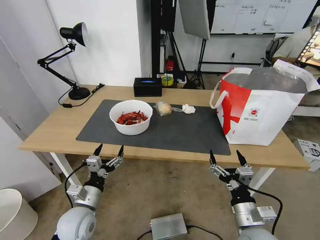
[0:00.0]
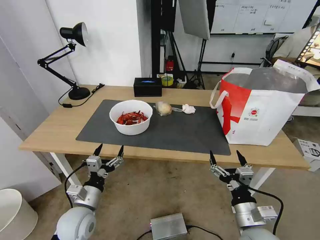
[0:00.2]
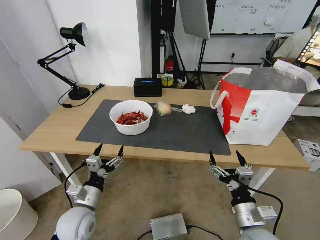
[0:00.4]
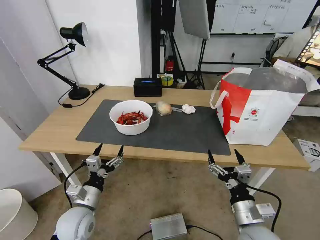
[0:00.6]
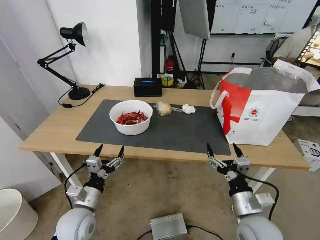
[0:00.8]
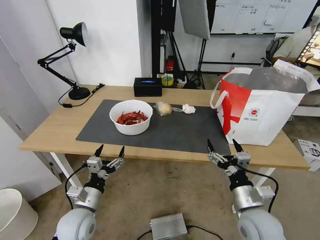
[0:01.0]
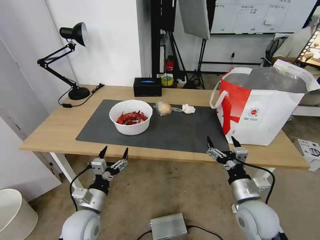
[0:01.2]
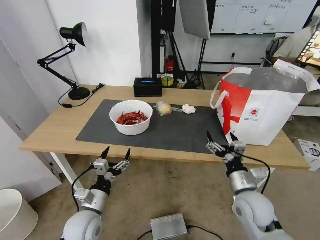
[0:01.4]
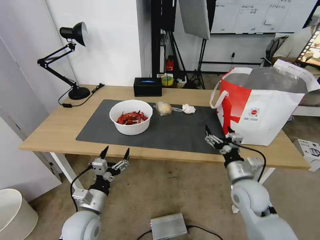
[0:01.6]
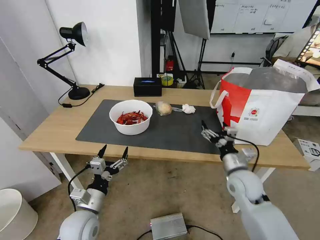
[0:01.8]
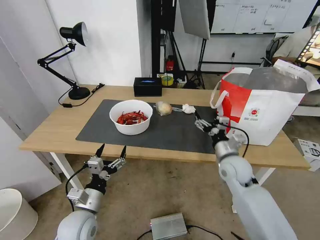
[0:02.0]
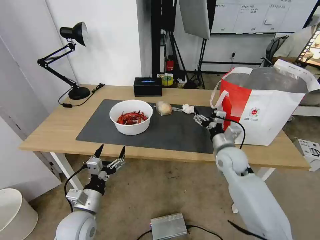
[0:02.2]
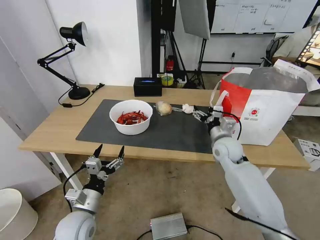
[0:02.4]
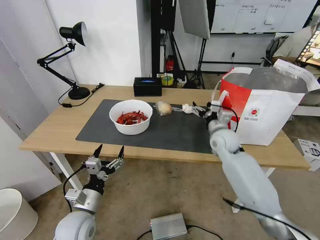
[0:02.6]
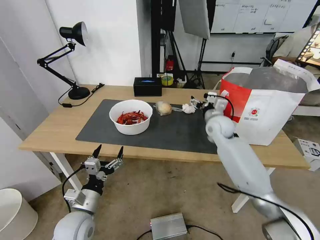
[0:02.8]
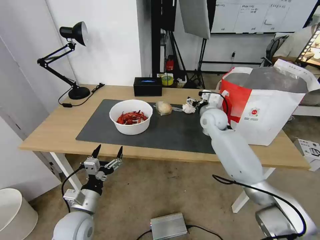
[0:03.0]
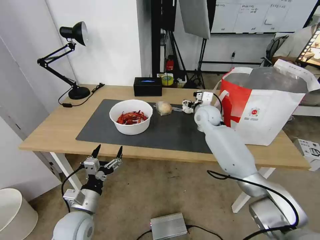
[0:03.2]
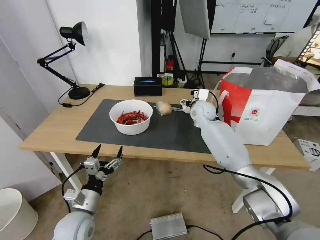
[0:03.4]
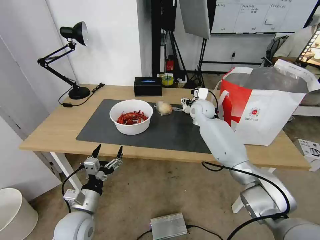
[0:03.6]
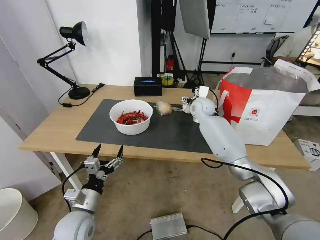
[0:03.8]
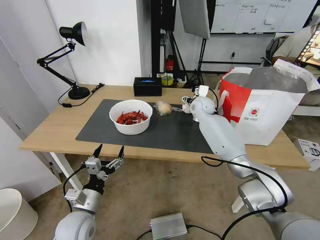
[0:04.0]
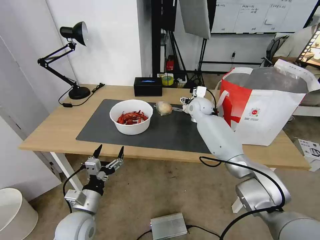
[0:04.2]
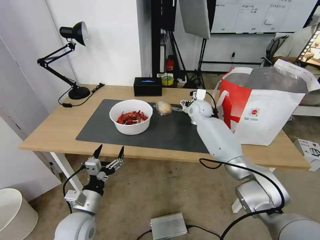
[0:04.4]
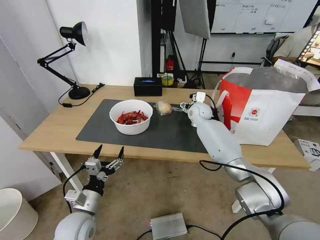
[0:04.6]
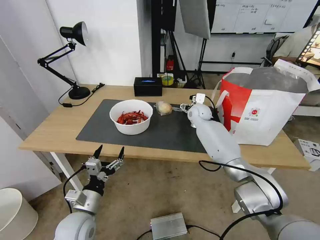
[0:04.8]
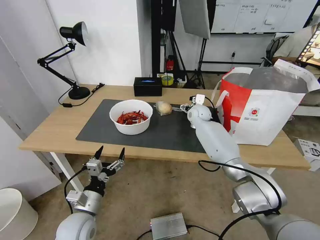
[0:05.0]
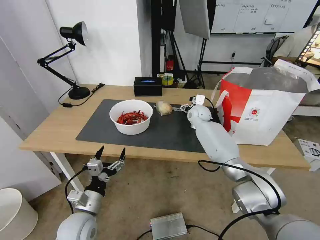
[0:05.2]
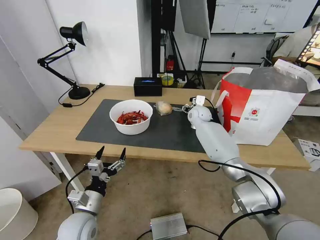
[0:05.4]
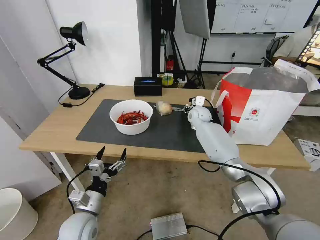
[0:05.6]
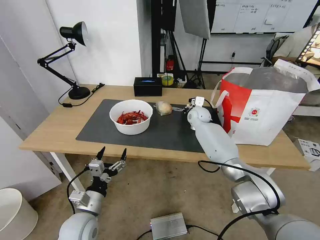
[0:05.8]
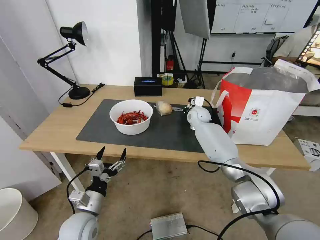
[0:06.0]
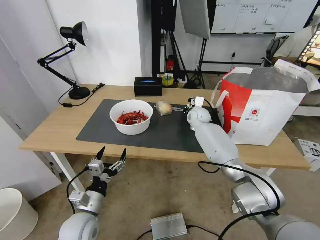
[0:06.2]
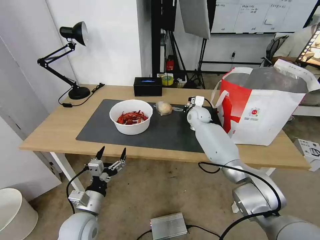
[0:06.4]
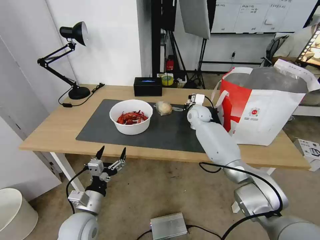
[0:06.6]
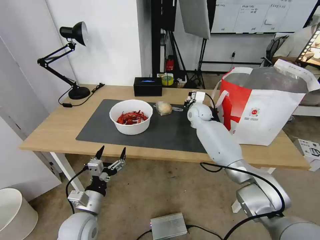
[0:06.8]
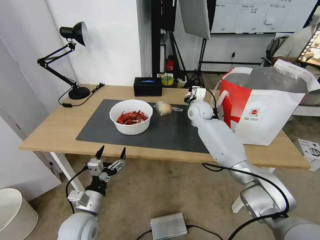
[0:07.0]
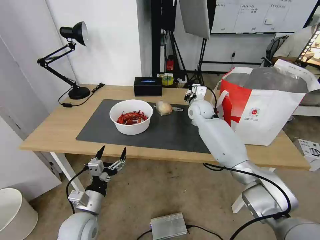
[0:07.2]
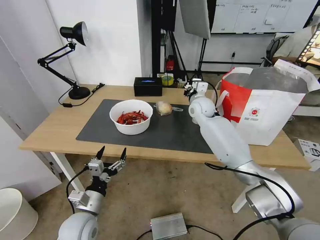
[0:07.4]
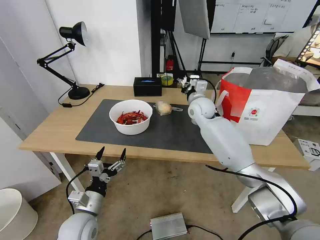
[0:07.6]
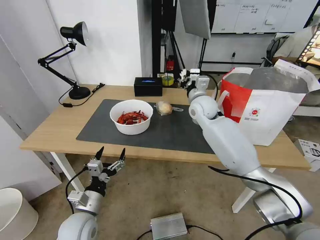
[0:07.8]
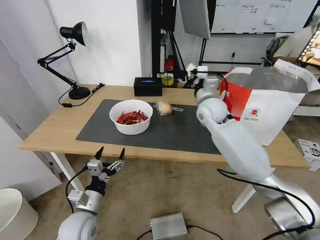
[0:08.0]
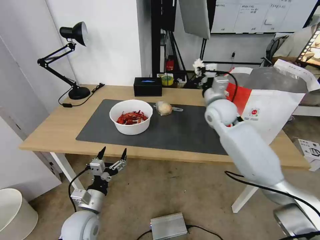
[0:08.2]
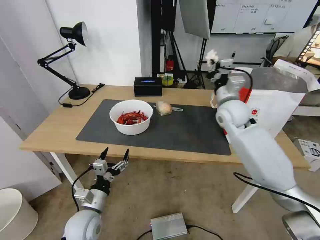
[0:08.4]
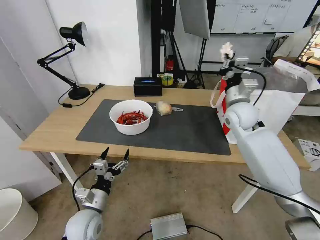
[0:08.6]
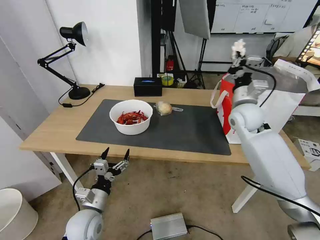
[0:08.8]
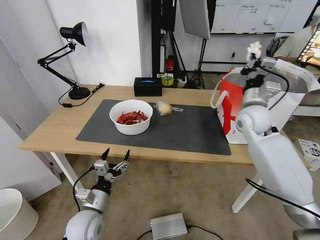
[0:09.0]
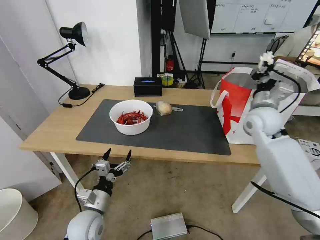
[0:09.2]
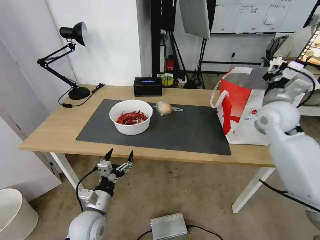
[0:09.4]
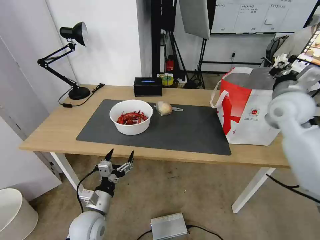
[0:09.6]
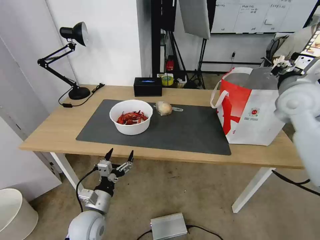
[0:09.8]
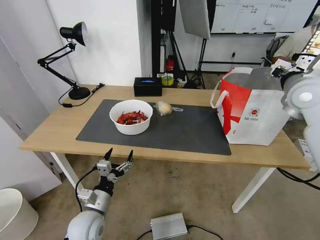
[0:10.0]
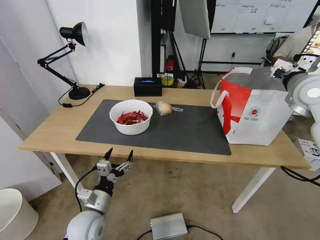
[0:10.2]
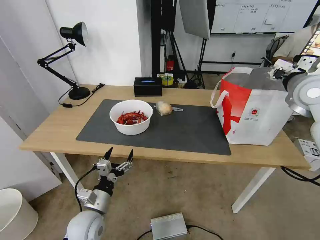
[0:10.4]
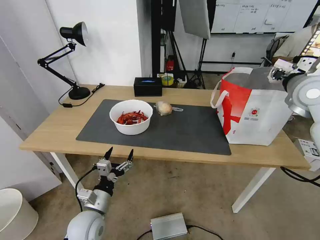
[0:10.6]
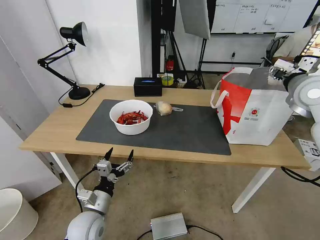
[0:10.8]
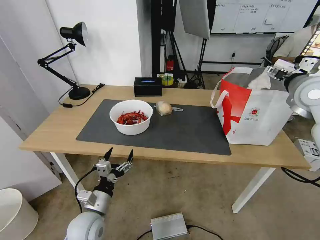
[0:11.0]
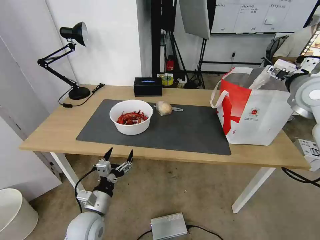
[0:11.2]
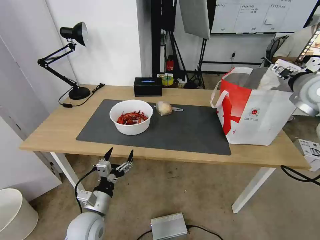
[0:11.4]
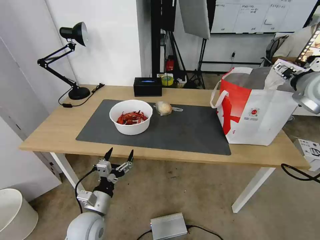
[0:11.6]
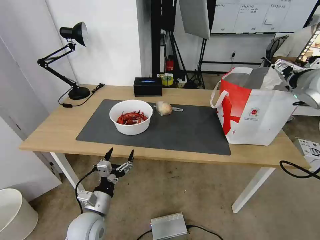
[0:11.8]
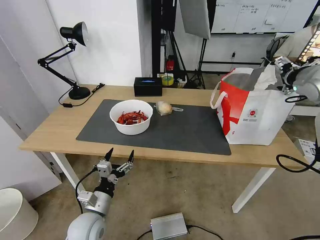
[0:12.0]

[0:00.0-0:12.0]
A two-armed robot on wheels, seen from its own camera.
Task of the whole recording: Pick up the trash from the table and place it into the takeout bag.
0:00.0 to 0:01.6: The right gripper is displaced forward by approximately 10 cm.
0:01.6 to 0:03.0: The right gripper shifts approximately 25 cm forward.
0:03.0 to 0:04.4: The right gripper goes some 10 cm forward.
0:04.4 to 0:06.0: The right gripper closes its fingers.
0:06.0 to 0:07.6: The right gripper travels upward and backward by about 10 cm.
0:07.6 to 0:09.0: The right gripper travels to the right and backward by some 15 cm.
0:09.0 to 0:10.4: The right gripper shifts approximately 15 cm upward and to the right.
0:10.4 to 0:12.0: The right gripper opens its fingers.

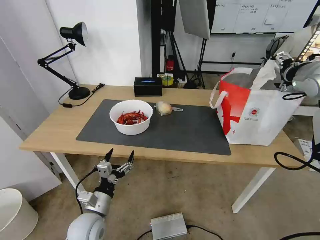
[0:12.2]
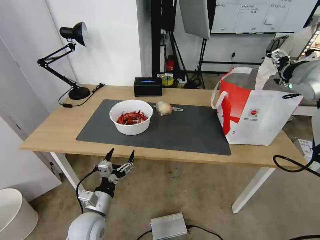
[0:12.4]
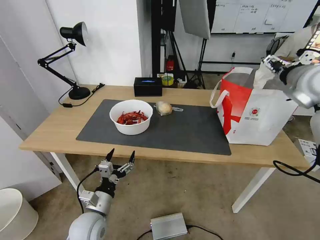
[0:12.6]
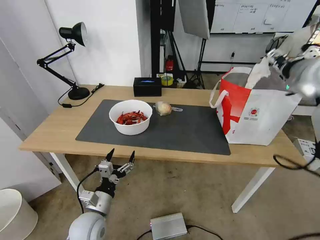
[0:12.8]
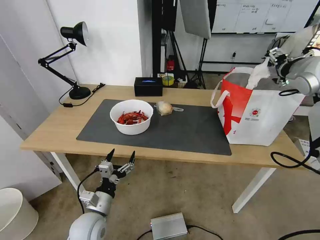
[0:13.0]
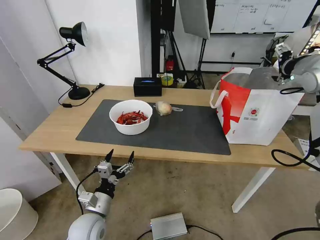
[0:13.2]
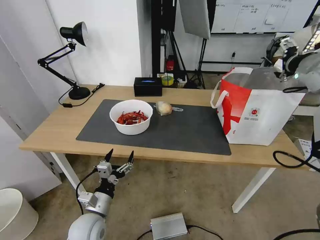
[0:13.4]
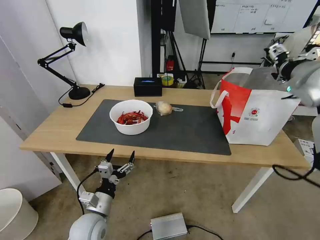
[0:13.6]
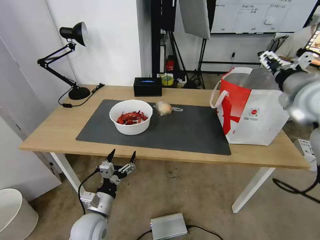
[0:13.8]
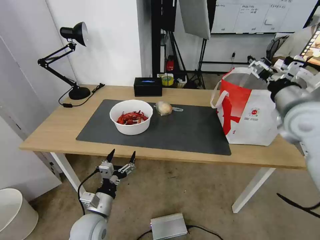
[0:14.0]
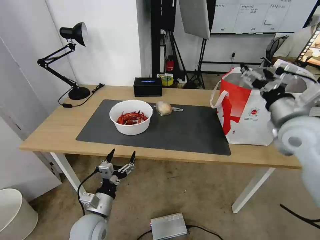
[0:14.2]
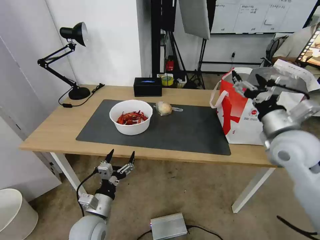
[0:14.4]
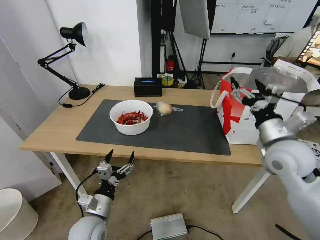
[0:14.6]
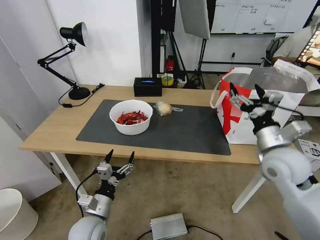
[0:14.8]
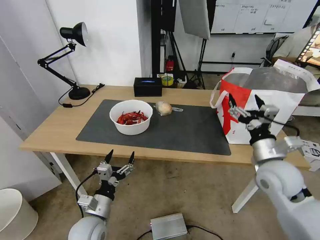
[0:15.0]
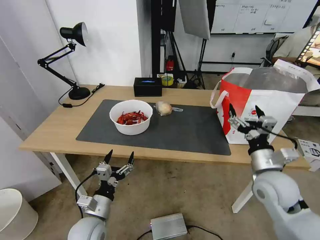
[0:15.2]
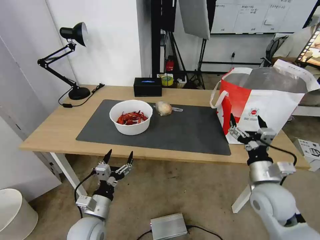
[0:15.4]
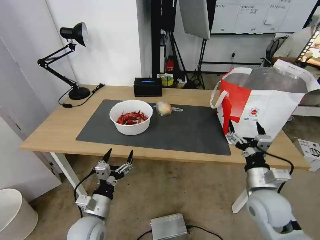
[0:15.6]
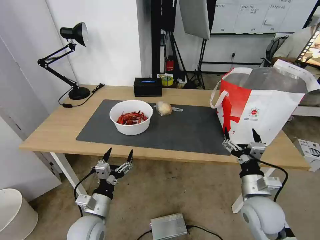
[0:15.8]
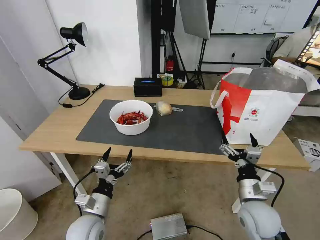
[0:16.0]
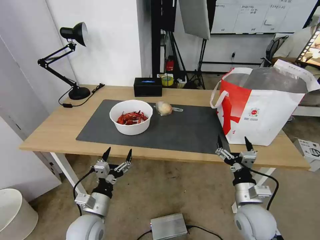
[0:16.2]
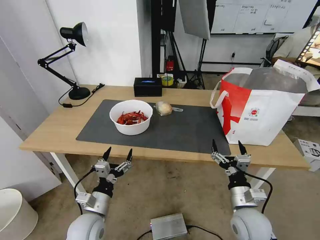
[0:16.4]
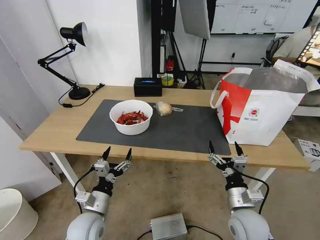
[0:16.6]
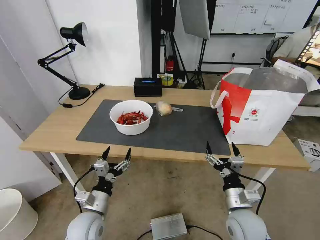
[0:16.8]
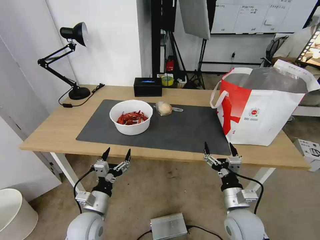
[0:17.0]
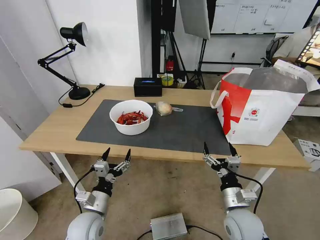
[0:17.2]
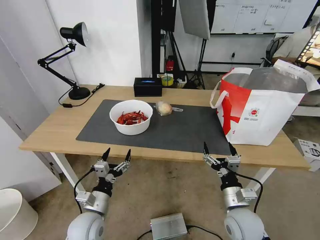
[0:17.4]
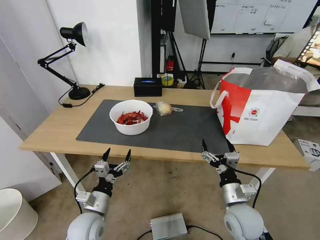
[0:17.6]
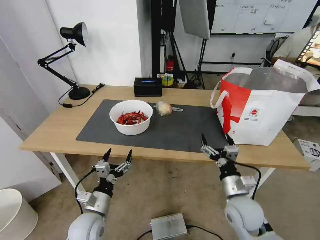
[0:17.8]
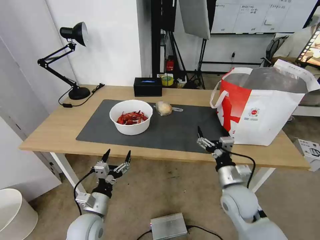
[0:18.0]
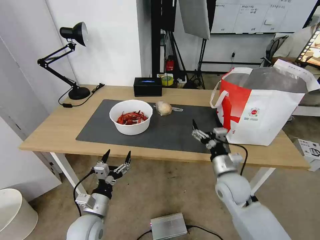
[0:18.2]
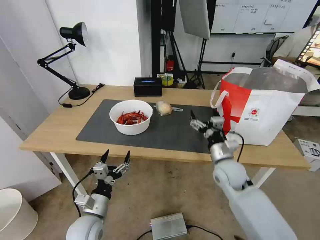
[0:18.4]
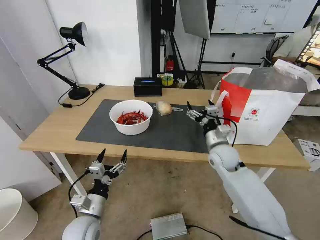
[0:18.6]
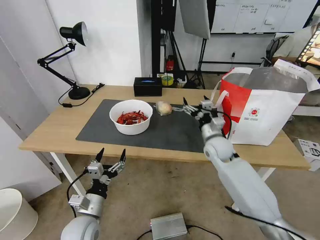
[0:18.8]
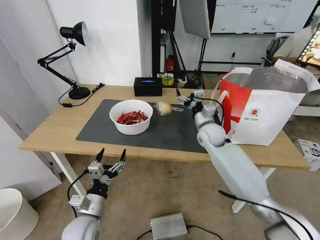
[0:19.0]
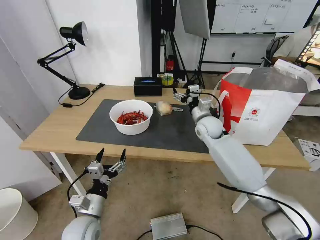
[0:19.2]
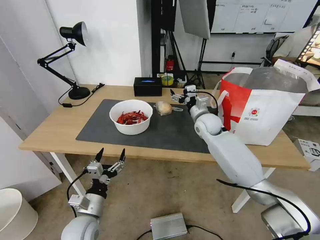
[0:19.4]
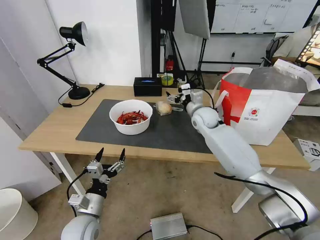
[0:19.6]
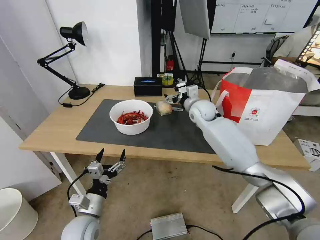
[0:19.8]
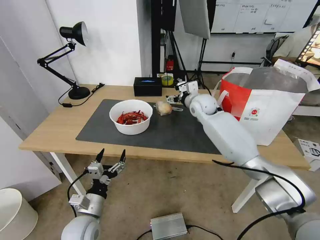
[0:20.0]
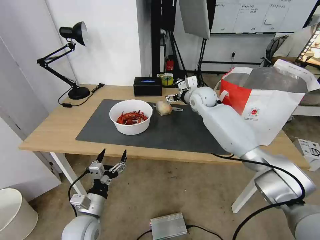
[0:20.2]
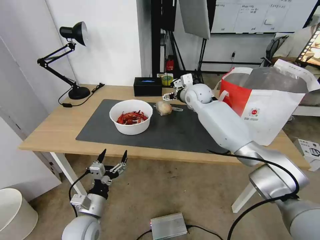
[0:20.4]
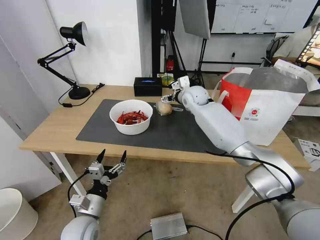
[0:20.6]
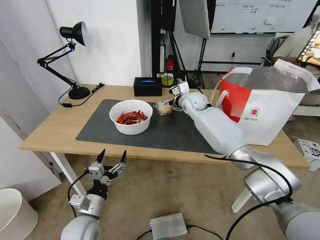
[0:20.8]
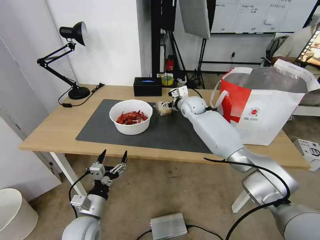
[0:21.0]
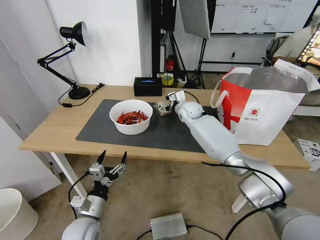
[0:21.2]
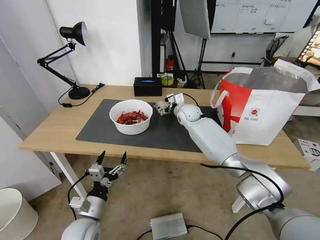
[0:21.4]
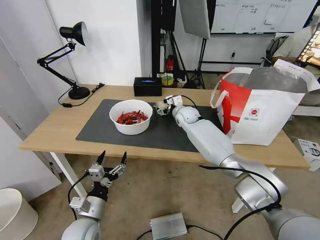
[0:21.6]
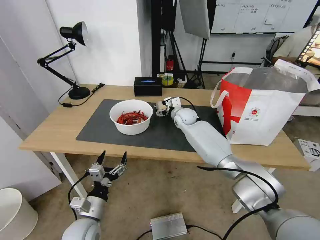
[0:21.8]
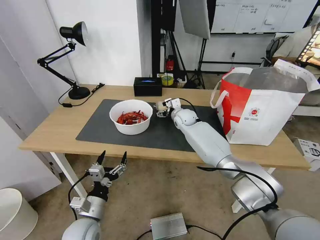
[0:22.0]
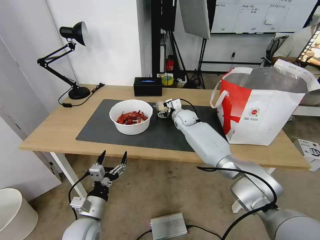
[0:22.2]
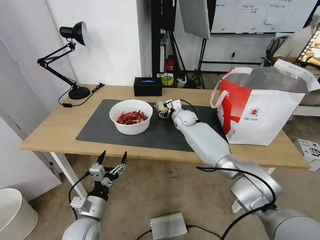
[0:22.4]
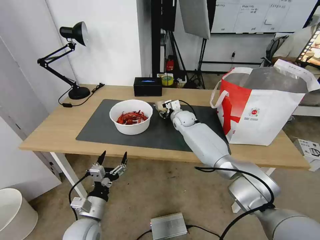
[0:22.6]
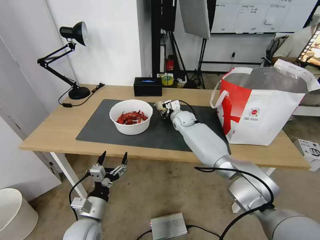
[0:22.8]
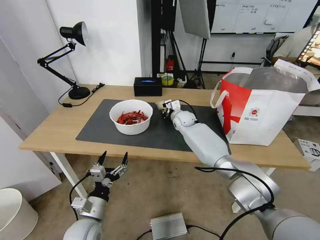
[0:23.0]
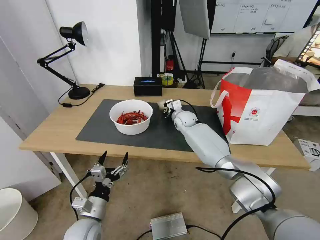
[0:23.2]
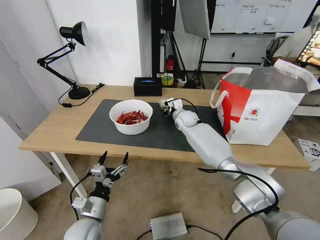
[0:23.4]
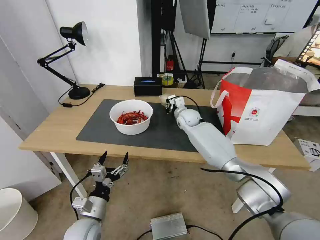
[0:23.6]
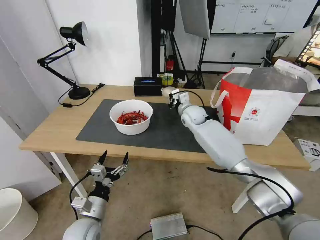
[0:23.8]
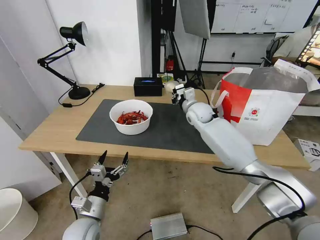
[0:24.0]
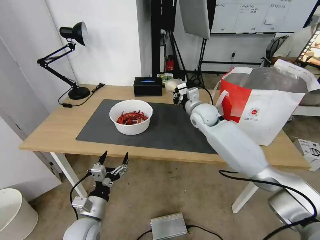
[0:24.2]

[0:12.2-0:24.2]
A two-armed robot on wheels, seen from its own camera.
Task of the whole recording: Pick up the trash from the table and place it into the takeout bag.
0:12.2 to 0:13.8: The right gripper moves to the left and backward, roughly 10 cm.
0:13.8 to 0:15.2: The right gripper travels downward and backward by approximately 25 cm.
0:15.2 to 0:16.6: The right gripper heads downward, backward and to the left, covering about 15 cm.
0:16.6 to 0:18.2: The right gripper heads forward, covering about 10 cm.
0:18.2 to 0:19.8: The right gripper goes approximately 30 cm forward and upward.
0:19.8 to 0:21.2: The right gripper changes place by approximately 5 cm.
0:21.2 to 0:22.6: The right gripper heads downward, covering some 5 cm, and closes.
0:22.6 to 0:24.2: The right gripper is displaced upward, backward and to the right by approximately 15 cm, and closes up.
